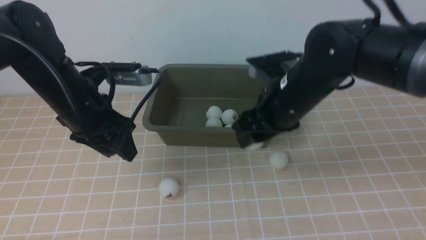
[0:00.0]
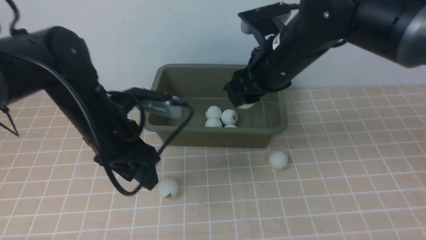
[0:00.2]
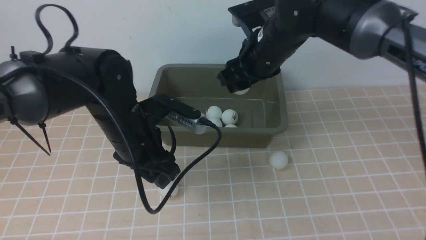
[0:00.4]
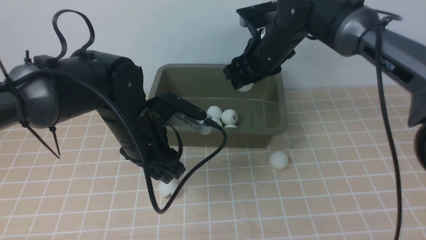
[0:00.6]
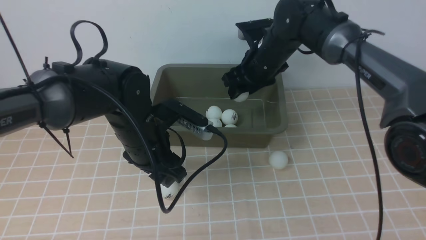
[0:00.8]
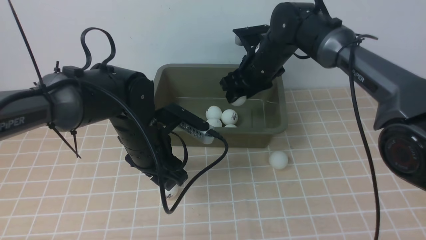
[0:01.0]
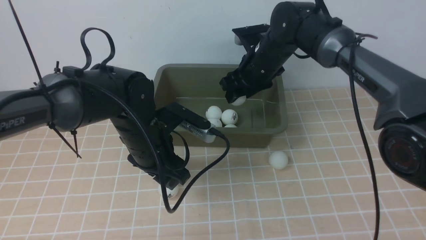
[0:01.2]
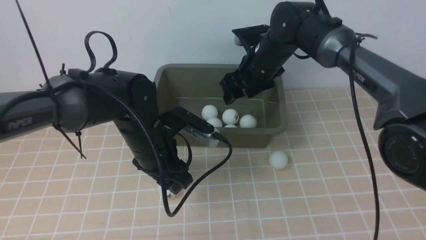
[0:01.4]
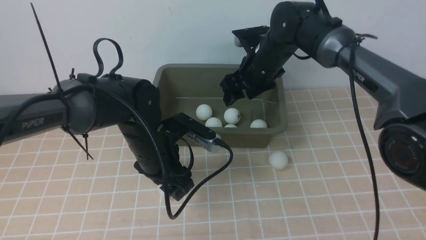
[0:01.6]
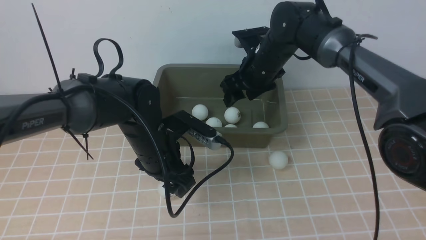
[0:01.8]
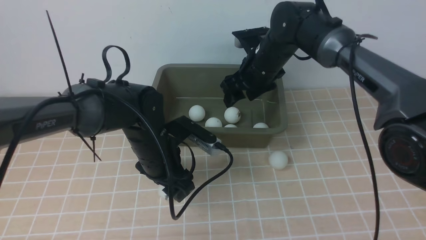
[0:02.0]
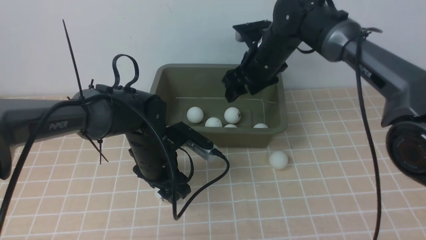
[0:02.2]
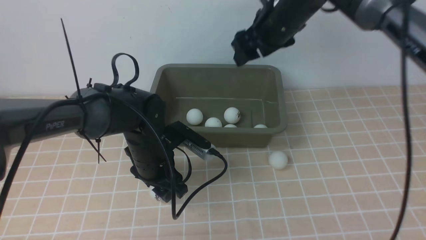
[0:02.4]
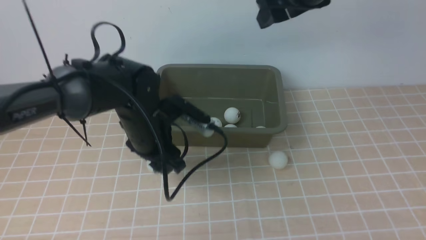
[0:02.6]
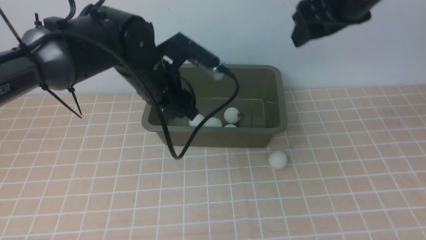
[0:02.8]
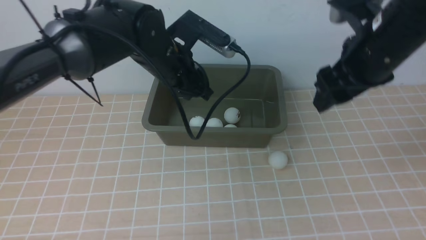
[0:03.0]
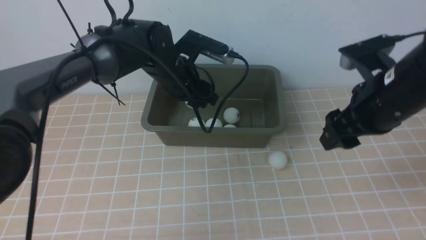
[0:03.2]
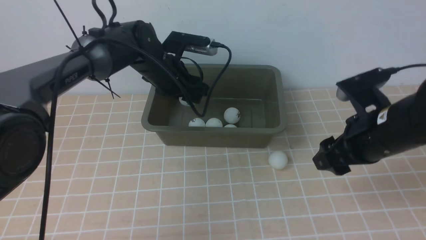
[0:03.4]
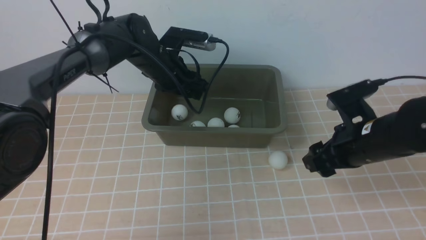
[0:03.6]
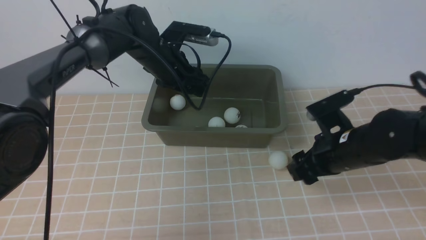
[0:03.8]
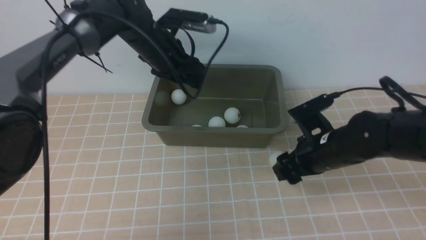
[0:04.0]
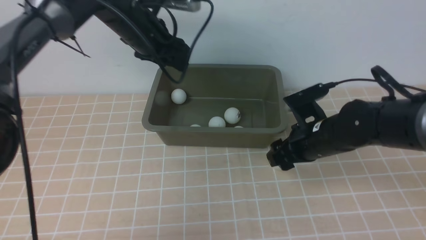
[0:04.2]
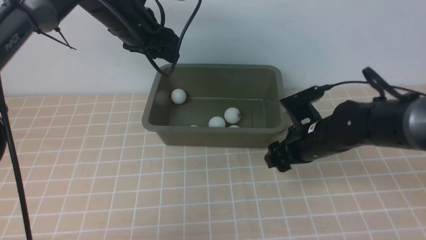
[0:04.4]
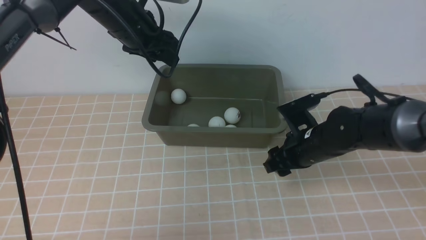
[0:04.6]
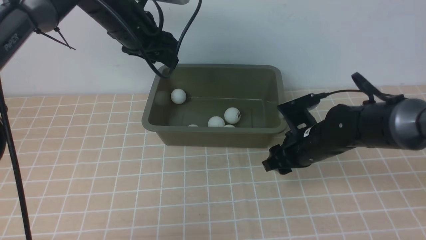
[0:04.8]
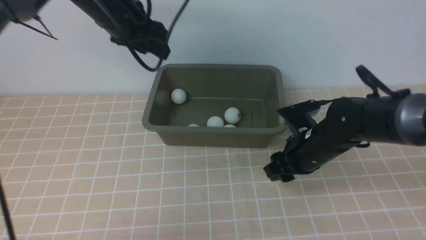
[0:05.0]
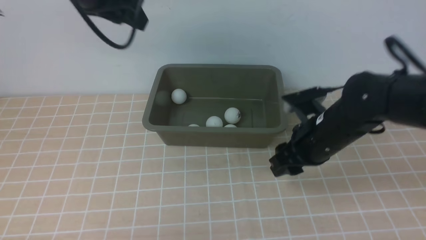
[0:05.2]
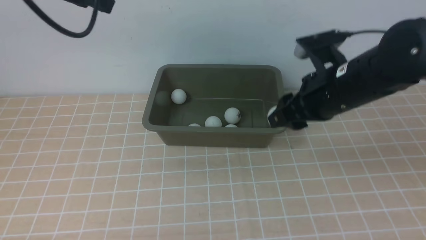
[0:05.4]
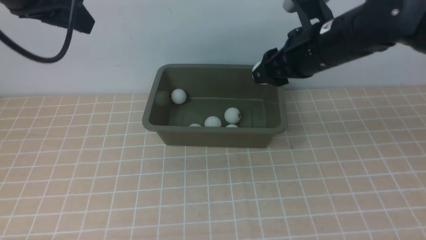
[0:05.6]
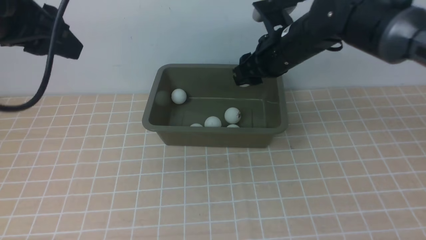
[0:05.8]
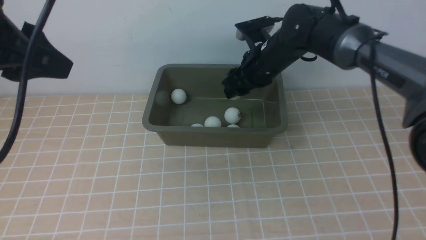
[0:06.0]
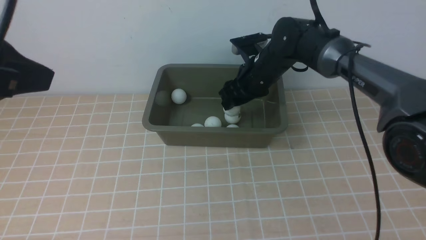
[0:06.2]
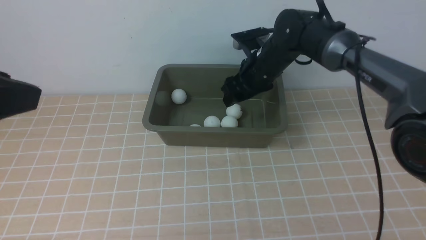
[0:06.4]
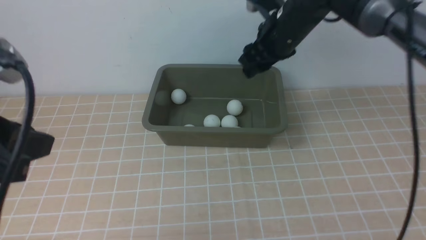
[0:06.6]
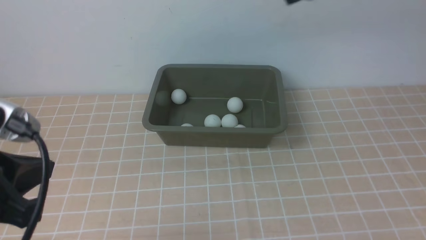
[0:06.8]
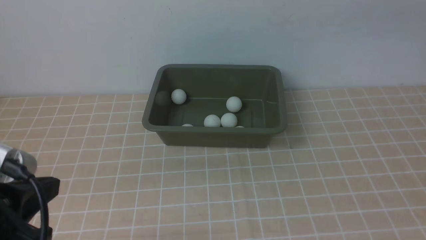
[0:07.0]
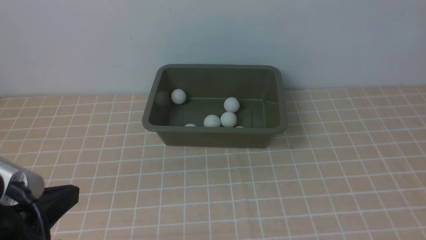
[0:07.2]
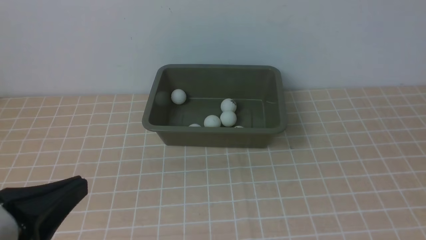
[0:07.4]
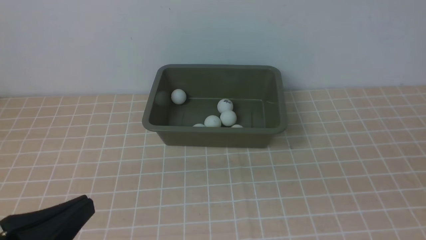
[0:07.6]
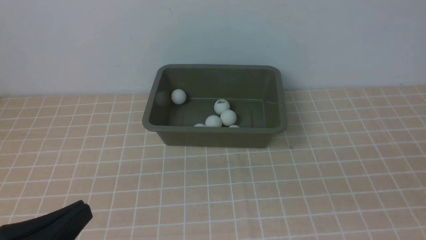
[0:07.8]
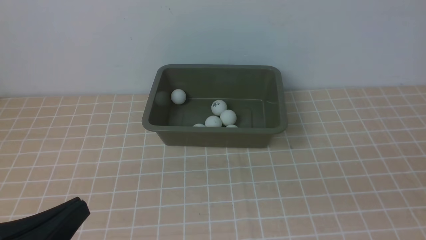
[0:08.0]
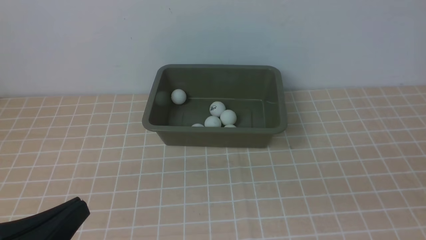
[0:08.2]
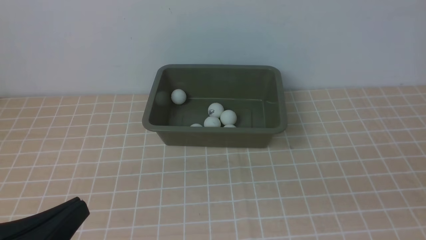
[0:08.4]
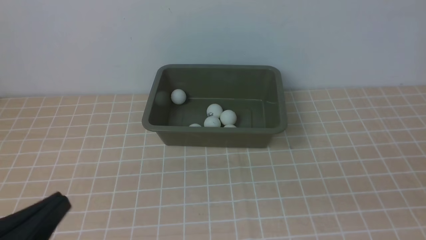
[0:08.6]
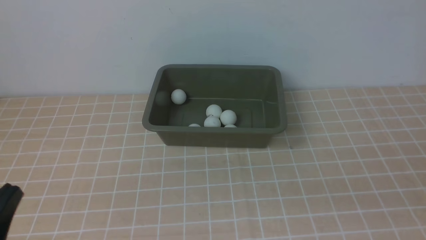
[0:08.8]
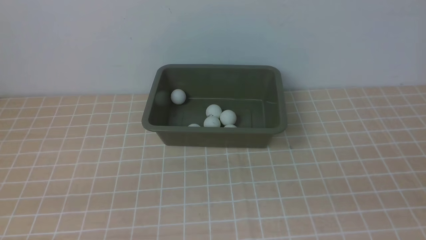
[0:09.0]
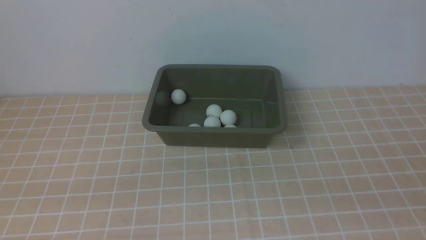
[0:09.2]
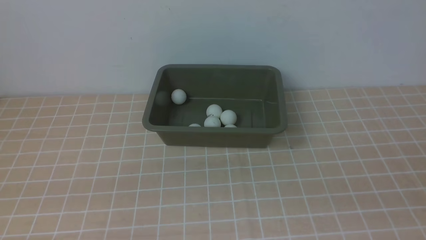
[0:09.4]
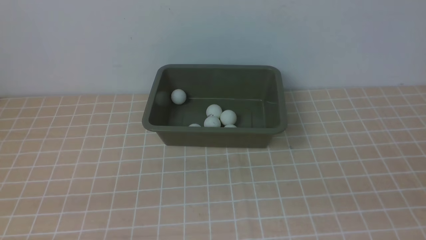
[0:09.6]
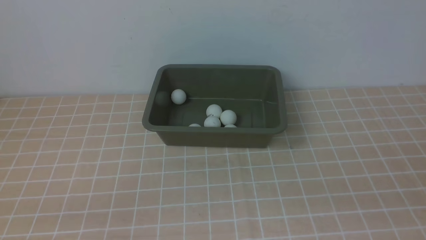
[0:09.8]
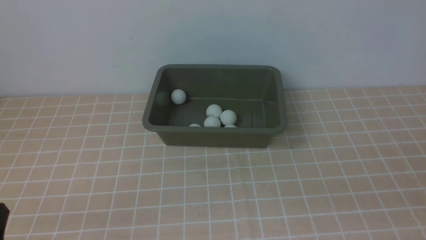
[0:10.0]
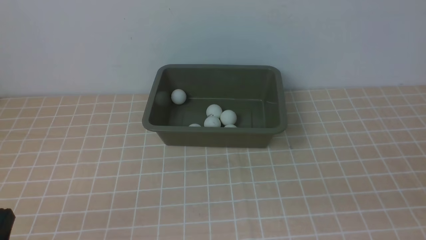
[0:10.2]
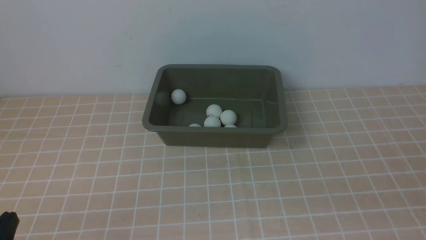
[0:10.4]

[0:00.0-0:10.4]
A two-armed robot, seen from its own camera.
Step, 0:00.0 to 0:01.4: use the right arm to put the table tennis ball into the box.
Step, 0:01.6 to 0:02.6: use the left arm to clamp the table tennis ball closest to it.
Step, 0:02.8 to 0:03.6: use the left arm to put the table tennis ball into the box.
Step, 0:03.8 to 0:05.2: use the right arm to clamp the table tennis ball closest to it.
Step, 0:05.4 to 0:06.6: use the right arm to put the table tennis ball into the box.
0:00.0 to 0:01.4: The left gripper goes approximately 10 cm to the right and downward. The right gripper goes about 15 cm forward.
0:01.4 to 0:03.0: The left gripper is displaced forward and upward by some 10 cm. Meanwhile the right gripper moves backward, to the right and upward, approximately 20 cm.
0:03.0 to 0:04.4: The right gripper is displaced downward by roughly 20 cm; the left gripper goes approximately 10 cm to the left and forward.
0:04.4 to 0:06.0: The left gripper shifts some 25 cm backward and upward, while the right gripper goes about 15 cm forward, upward and to the left.
0:06.0 to 0:07.4: The right gripper travels backward, to the right and upward by some 40 cm, and closes its fingers; the left gripper shifts approximately 20 cm downward and backward, and closes.
0:07.4 to 0:09.0: The left gripper moves some 5 cm.

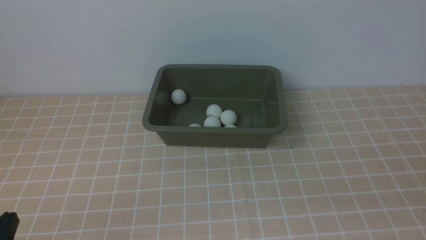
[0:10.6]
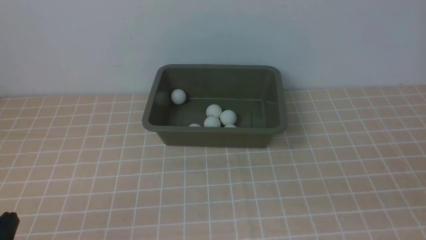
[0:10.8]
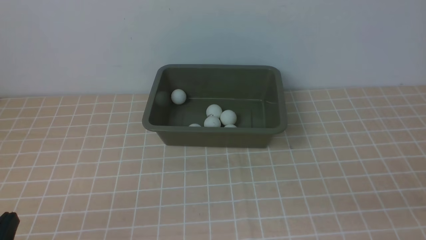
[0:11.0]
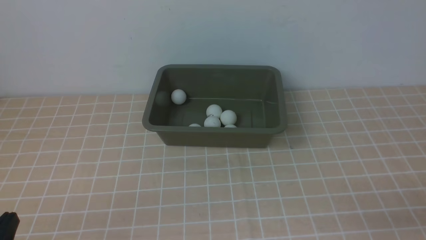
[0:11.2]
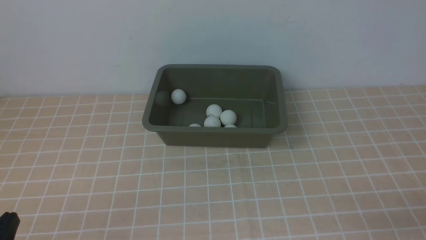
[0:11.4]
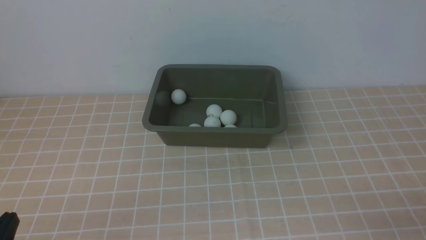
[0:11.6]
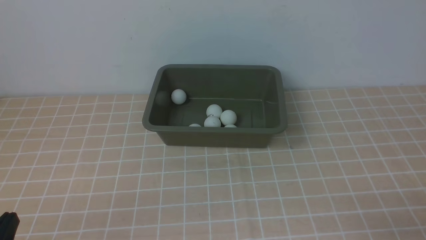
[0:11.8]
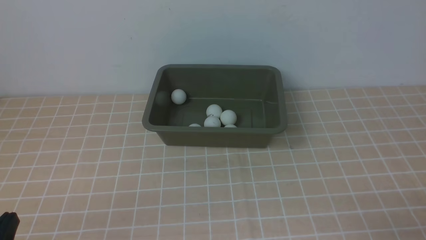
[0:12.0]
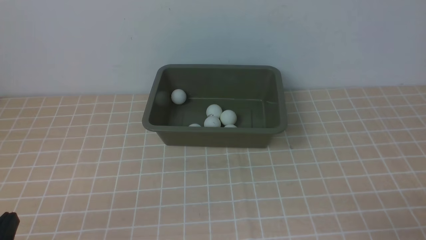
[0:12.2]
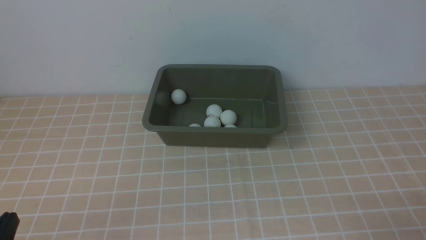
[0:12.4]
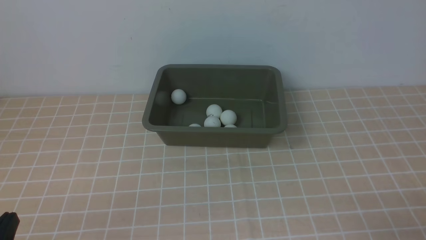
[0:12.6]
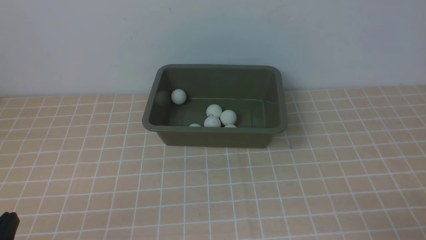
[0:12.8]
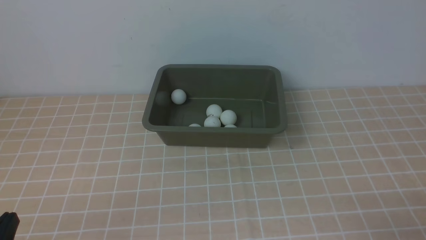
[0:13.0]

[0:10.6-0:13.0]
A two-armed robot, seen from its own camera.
0:11.8 to 0:13.0: Both grippers stay put.
